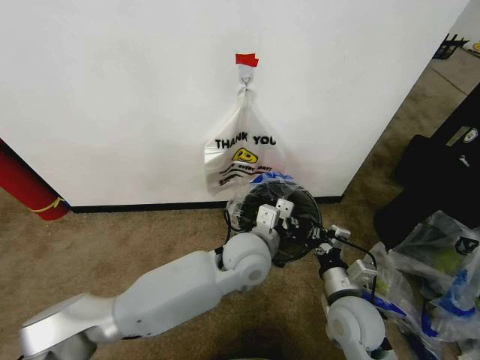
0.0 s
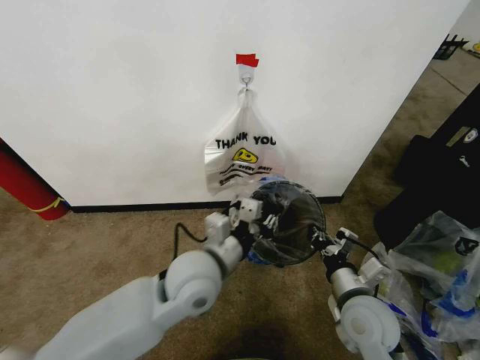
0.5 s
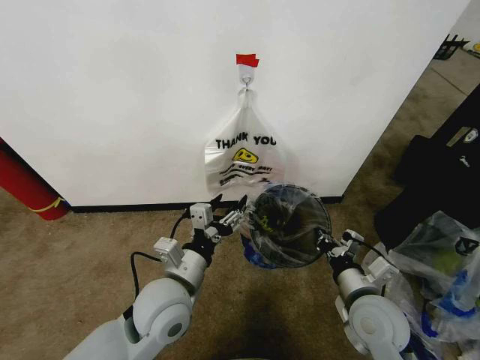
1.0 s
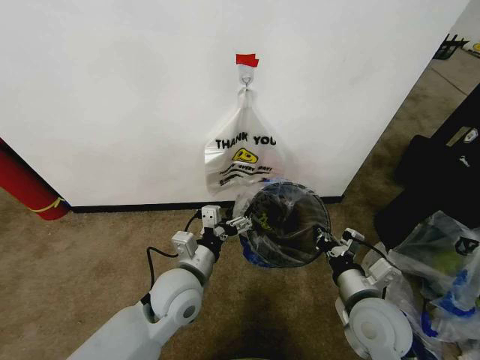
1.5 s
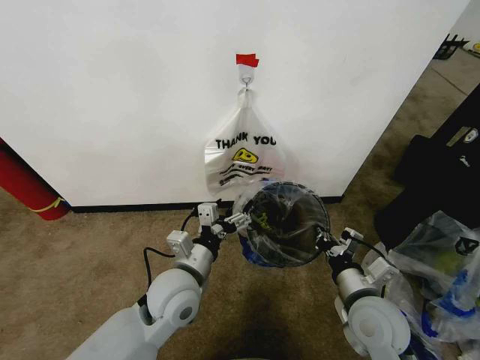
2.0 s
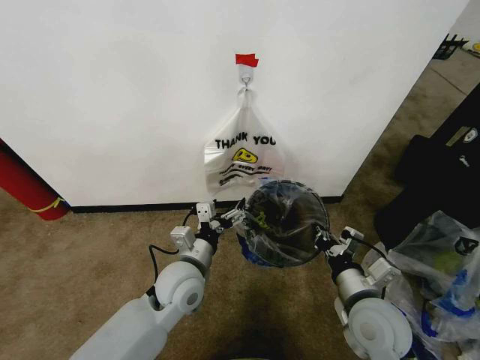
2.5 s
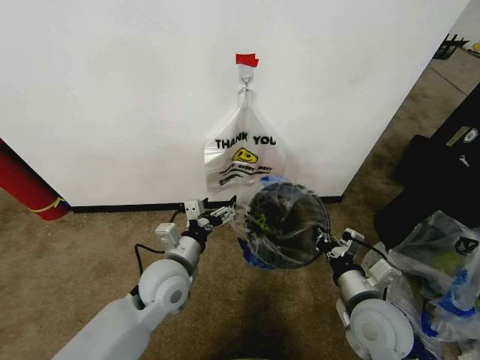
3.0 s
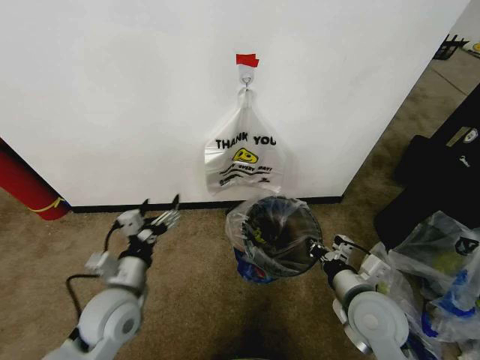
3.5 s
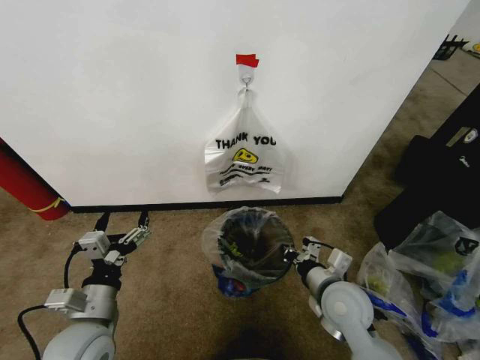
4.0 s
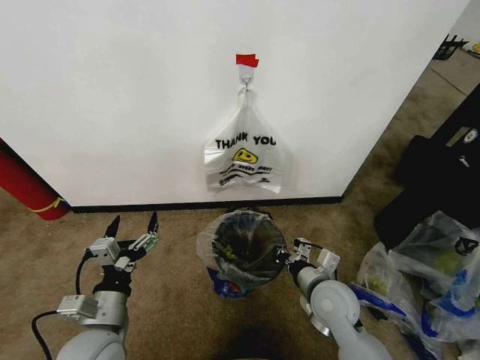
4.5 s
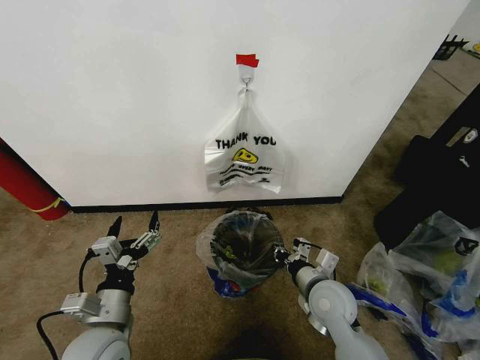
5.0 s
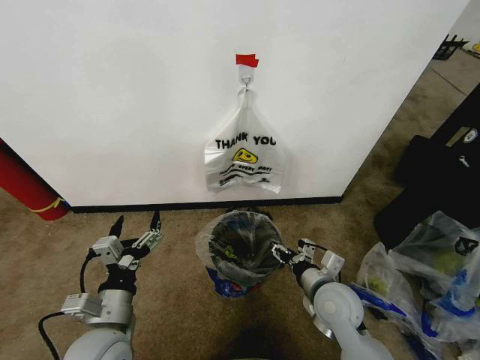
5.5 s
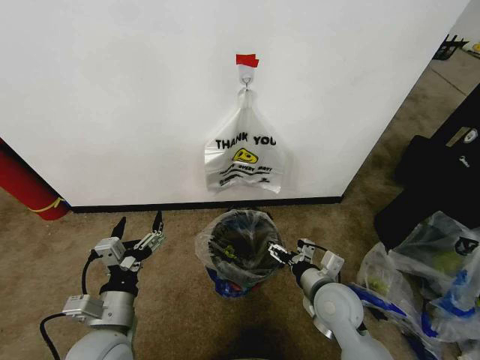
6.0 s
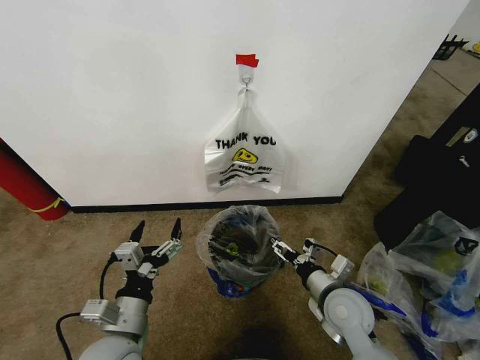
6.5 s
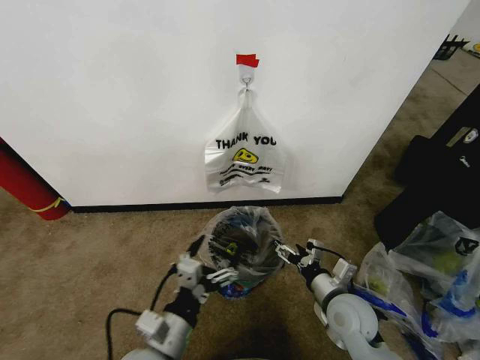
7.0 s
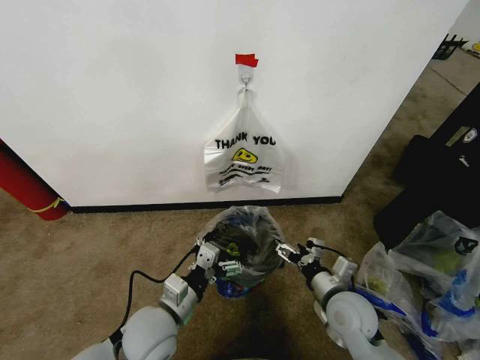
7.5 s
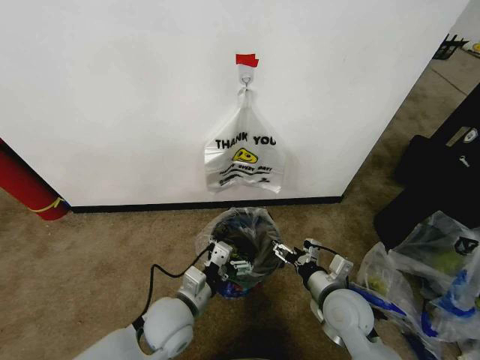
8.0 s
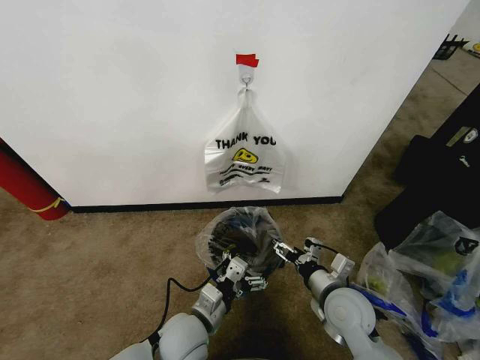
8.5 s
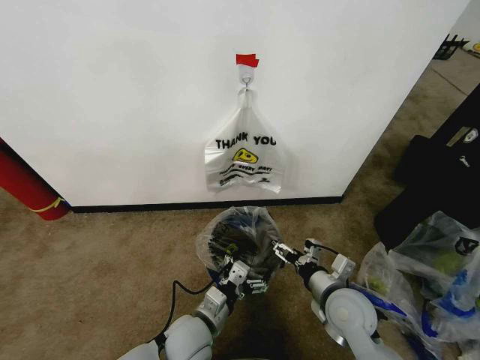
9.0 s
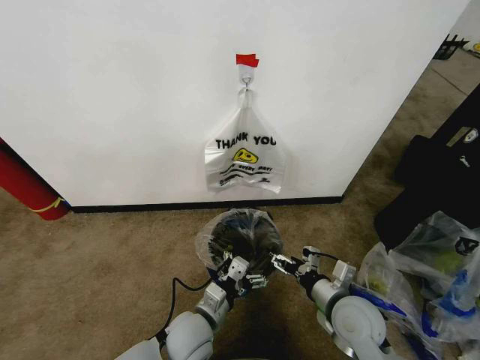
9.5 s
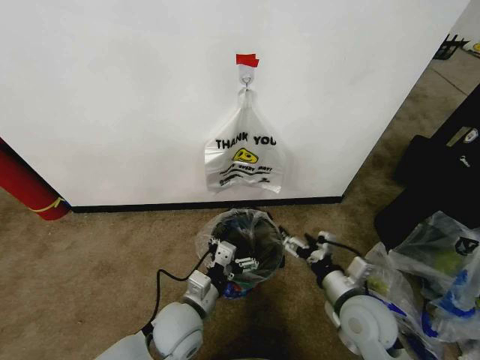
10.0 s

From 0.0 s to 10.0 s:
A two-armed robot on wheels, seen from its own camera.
Task of the whole recording: Pick up the garbage bag from the wall and place it over the trash bin.
From 0.0 s to 2.0 s: The left gripper heads to the left and backward, covering roughly 20 cm, and opens its fingers.
From 2.0 s to 4.0 s: The right gripper moves some 5 cm. The left gripper shifts roughly 15 cm to the left and backward.
From 4.0 s to 6.0 s: The right gripper opens up.
From 6.0 s to 8.0 s: The left gripper shifts roughly 10 cm to the right and forward.
From 8.0 s to 10.0 s: There are only small adjustments of the grippers.

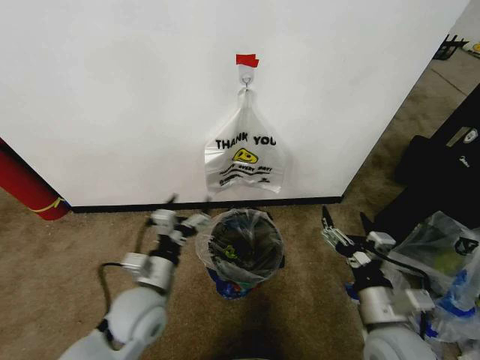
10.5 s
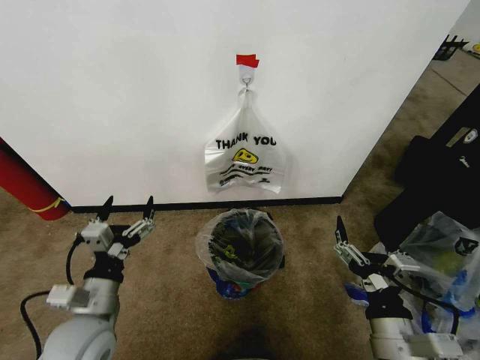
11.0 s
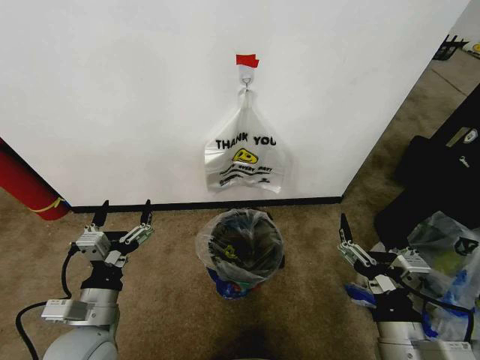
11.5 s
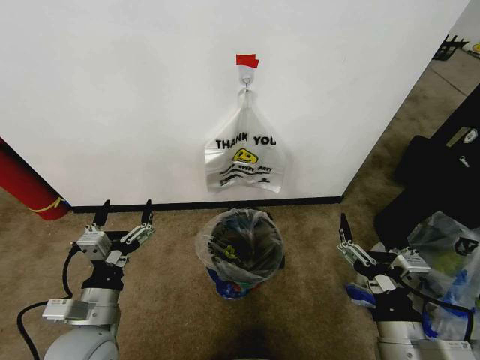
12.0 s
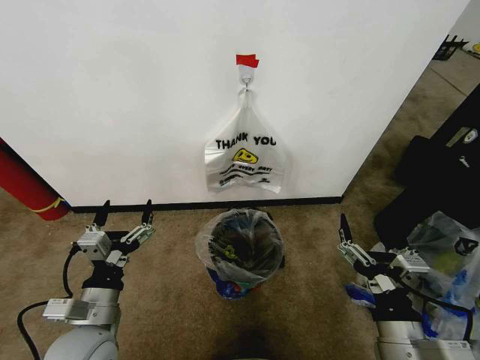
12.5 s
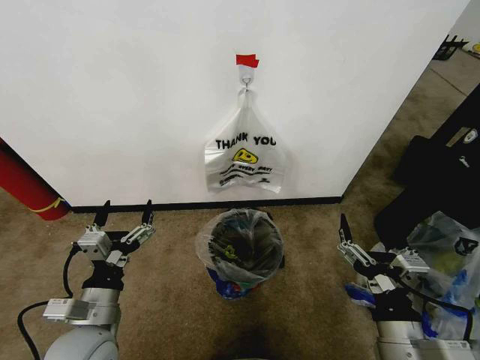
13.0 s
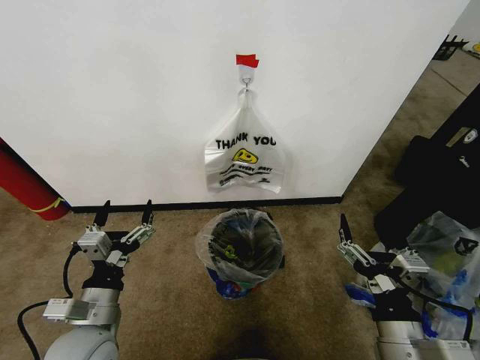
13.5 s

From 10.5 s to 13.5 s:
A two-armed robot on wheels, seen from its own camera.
Task of the whole recording: Pick up the garbage bag from the wall and place it over the trash bin.
From 10.5 s to 12.0 s: The left gripper moves to the left and backward, about 10 cm. The right gripper moves backward, roughly 5 cm.
From 12.0 s to 13.5 s: Both grippers stay put.
